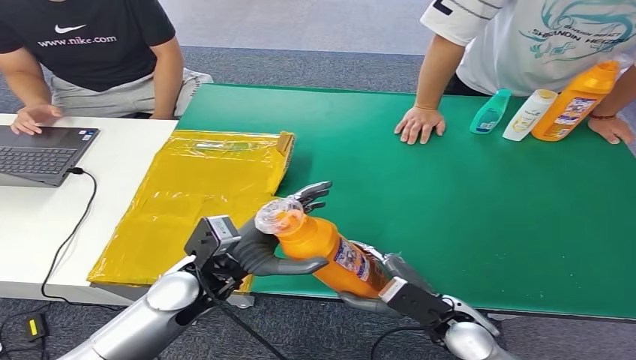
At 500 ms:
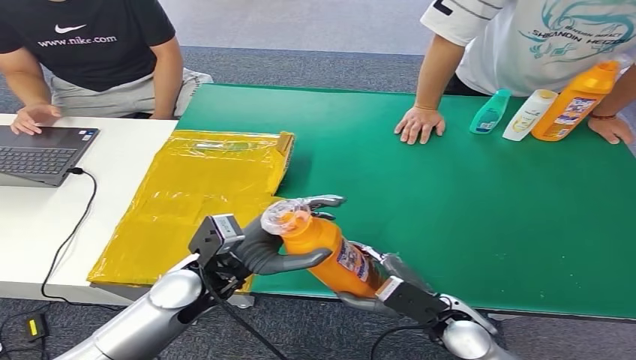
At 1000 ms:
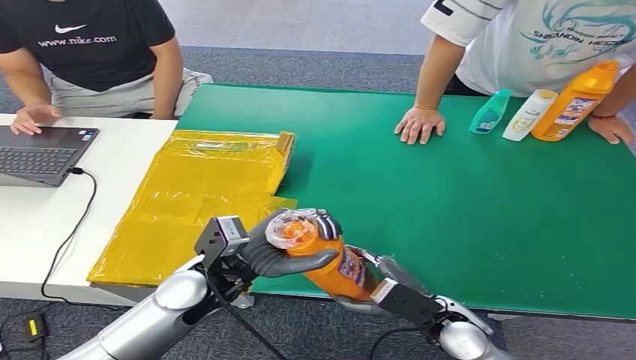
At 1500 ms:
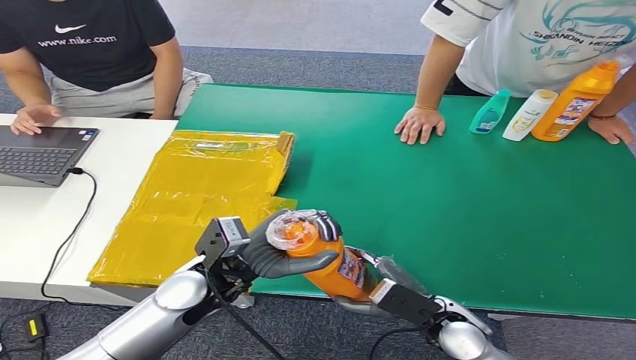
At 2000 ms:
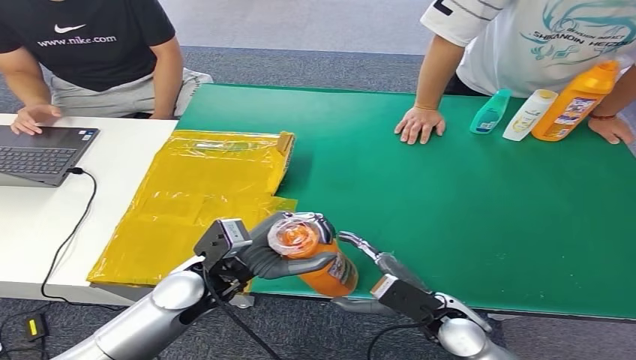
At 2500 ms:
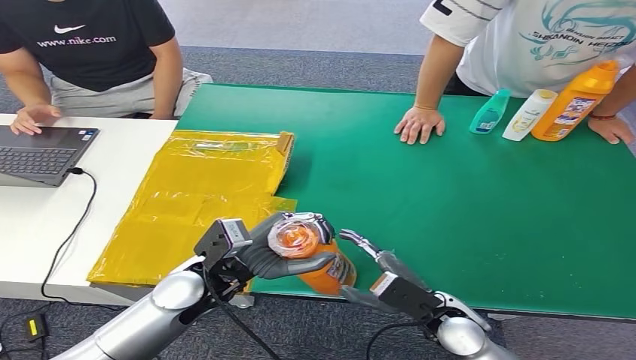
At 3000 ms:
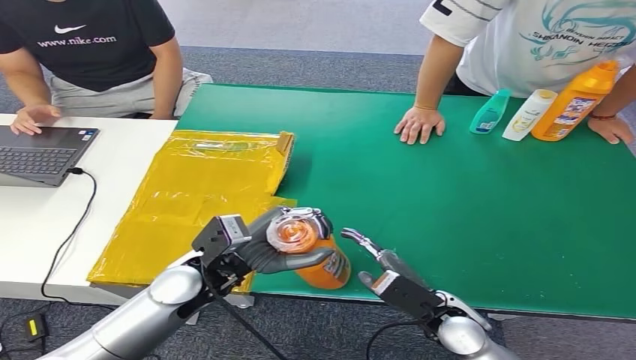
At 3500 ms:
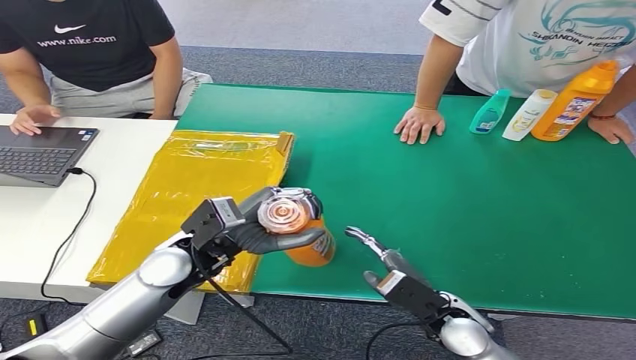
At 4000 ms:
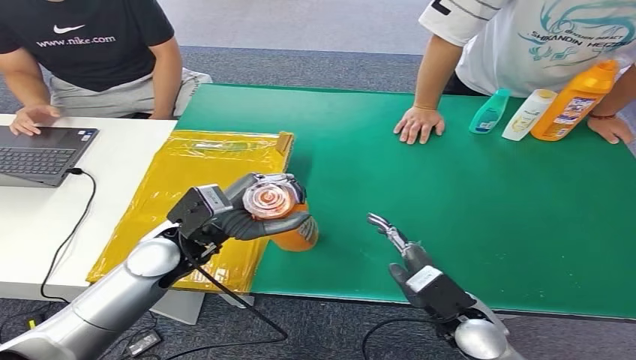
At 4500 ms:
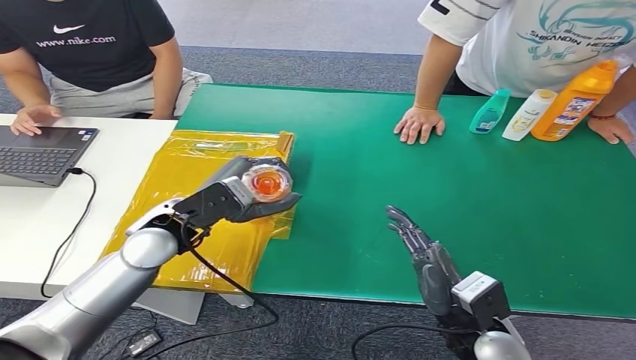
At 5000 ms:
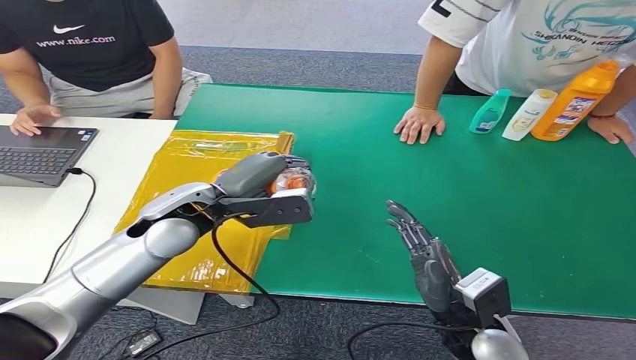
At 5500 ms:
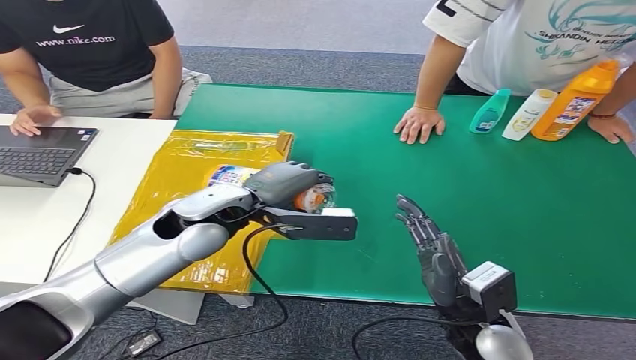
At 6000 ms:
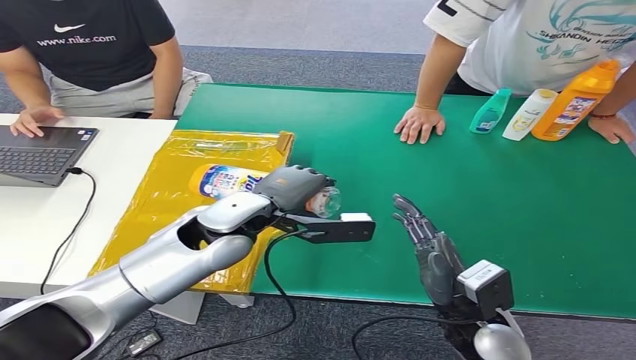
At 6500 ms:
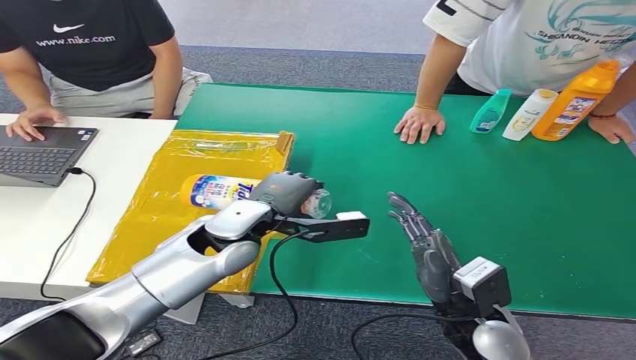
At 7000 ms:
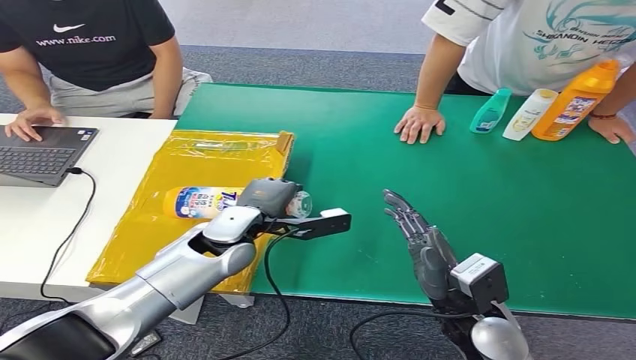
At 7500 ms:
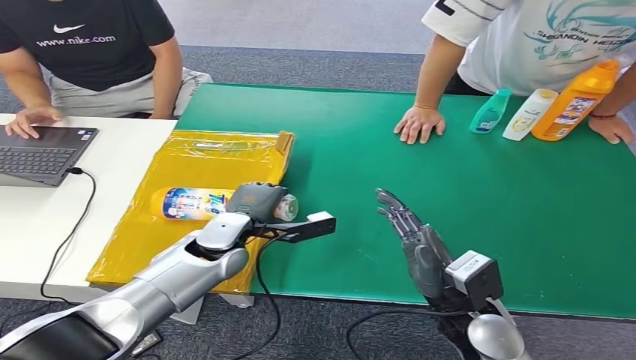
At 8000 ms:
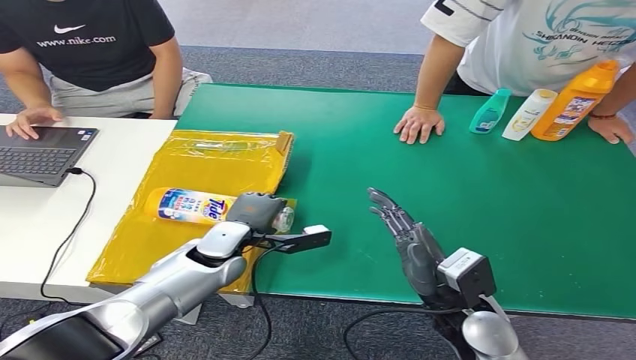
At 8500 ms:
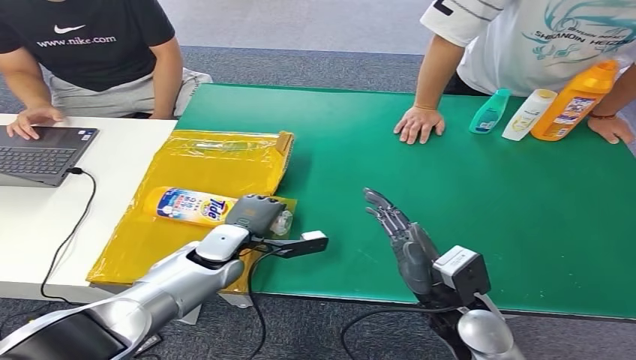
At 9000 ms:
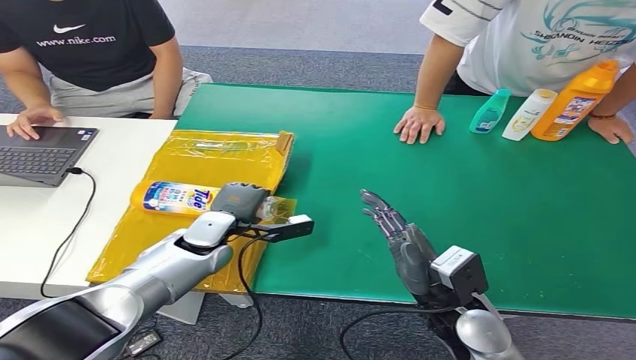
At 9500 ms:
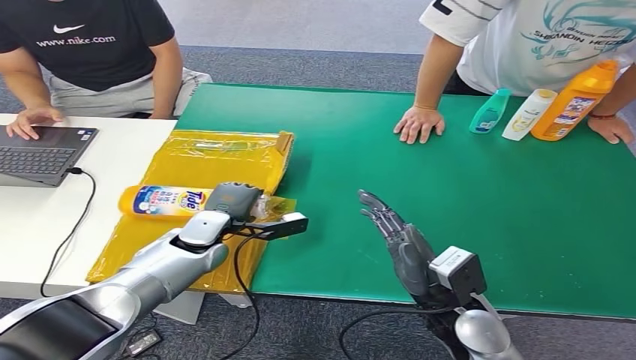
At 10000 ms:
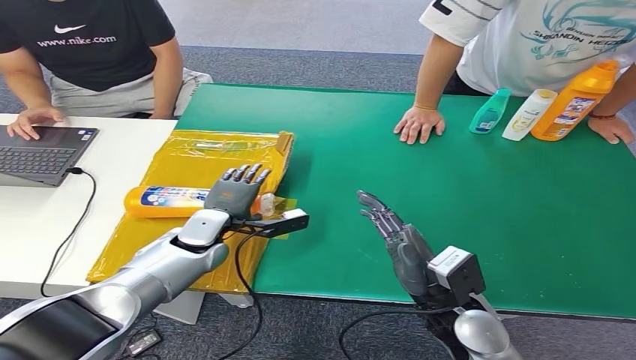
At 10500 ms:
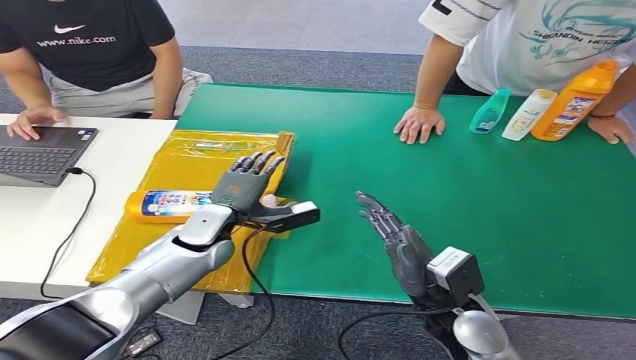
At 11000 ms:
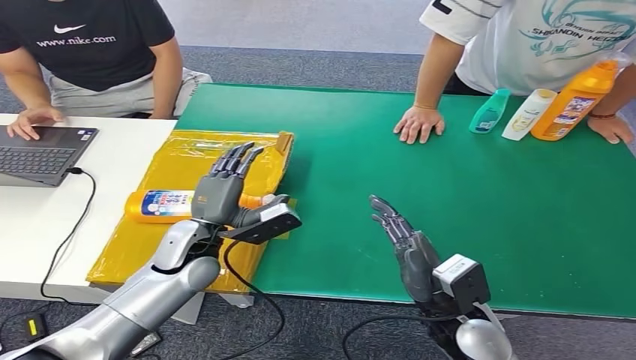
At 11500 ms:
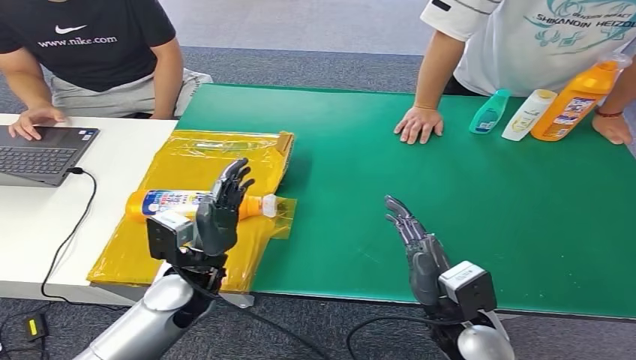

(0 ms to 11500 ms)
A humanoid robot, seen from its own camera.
Step, 0 ms - 11500 ms: Turn the bottle to the front side.
0 ms - 2000 ms: Neither hand changes place.
2000 ms - 4000 ms: The left hand moves about 5 cm.
4000 ms - 6000 ms: The left hand shifts about 5 cm to the right.
6000 ms - 7500 ms: The left hand is displaced downward by roughly 10 cm.
7500 ms - 9500 ms: The left hand ends up roughly 5 cm from where it was.
9500 ms - 11500 ms: The left hand is displaced backward by some 10 cm.

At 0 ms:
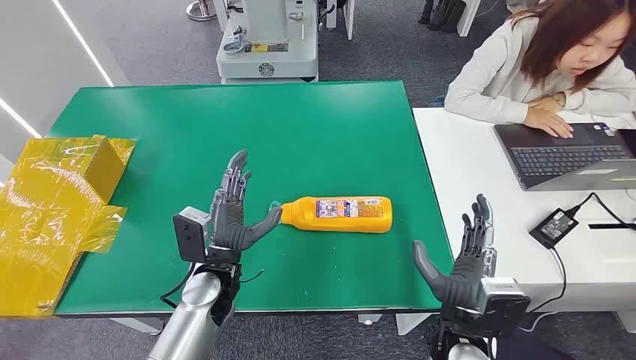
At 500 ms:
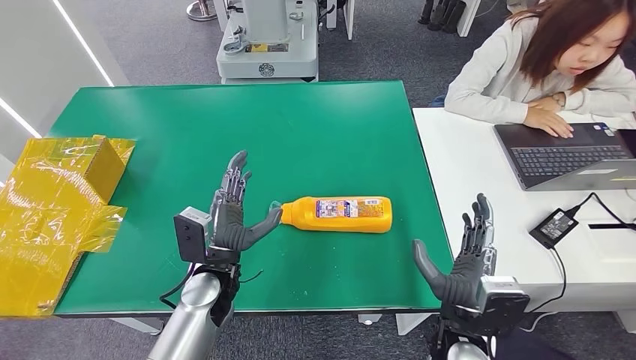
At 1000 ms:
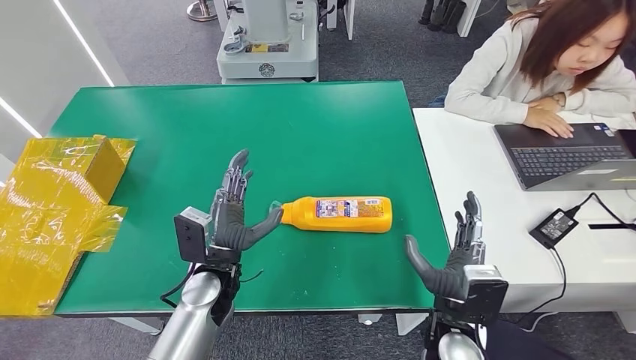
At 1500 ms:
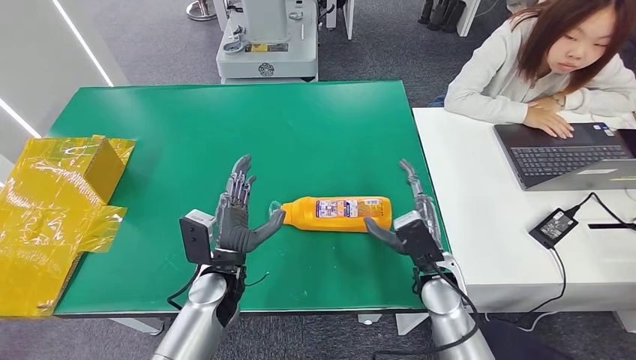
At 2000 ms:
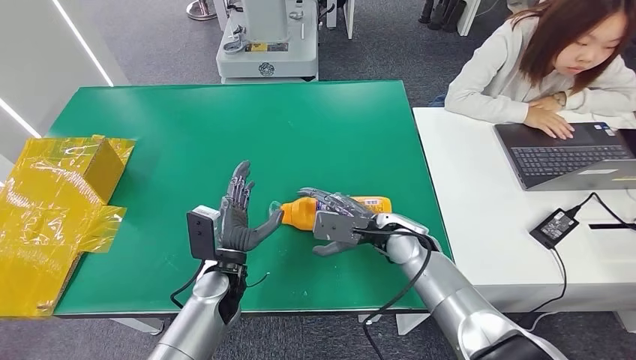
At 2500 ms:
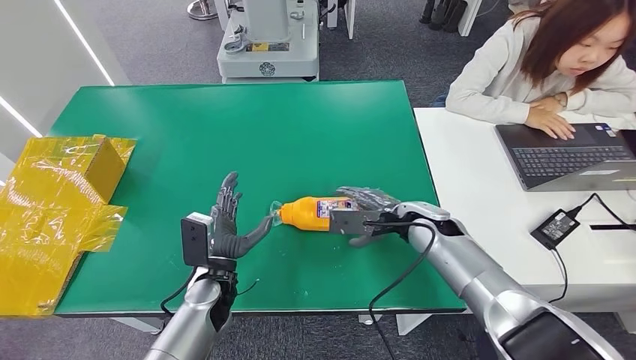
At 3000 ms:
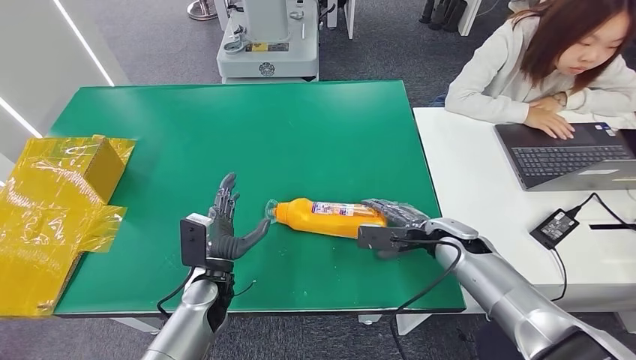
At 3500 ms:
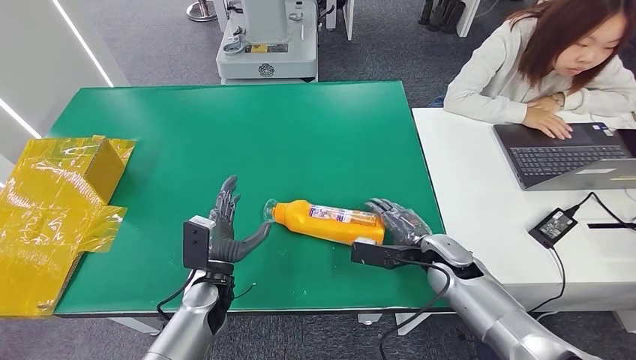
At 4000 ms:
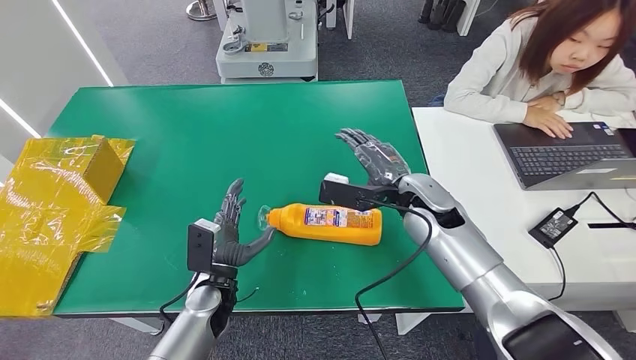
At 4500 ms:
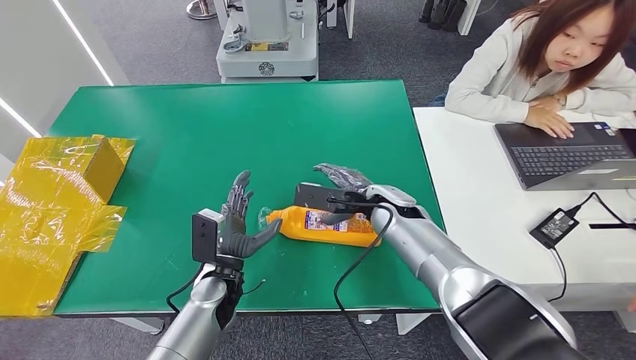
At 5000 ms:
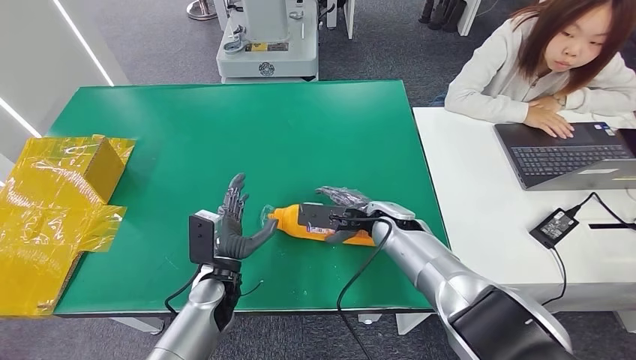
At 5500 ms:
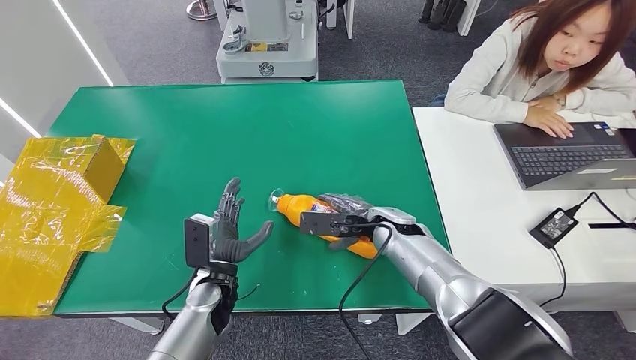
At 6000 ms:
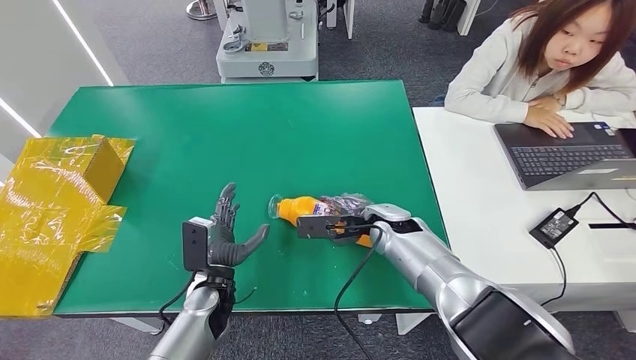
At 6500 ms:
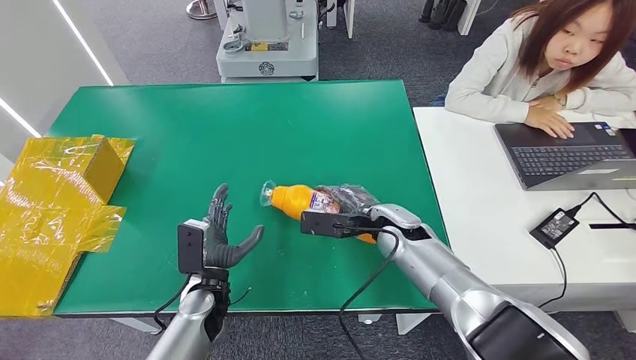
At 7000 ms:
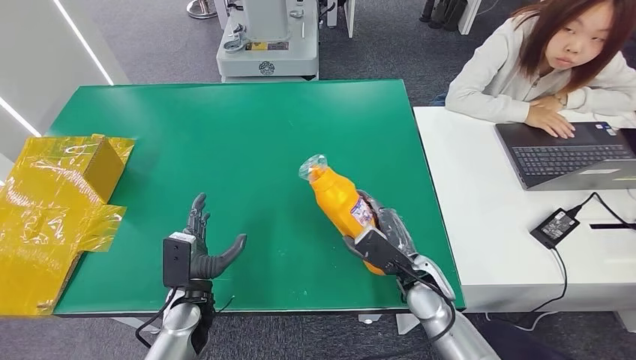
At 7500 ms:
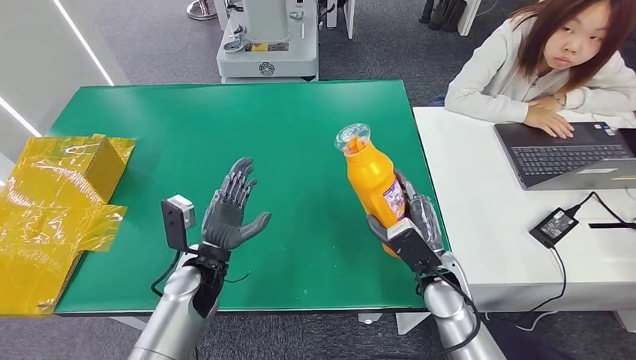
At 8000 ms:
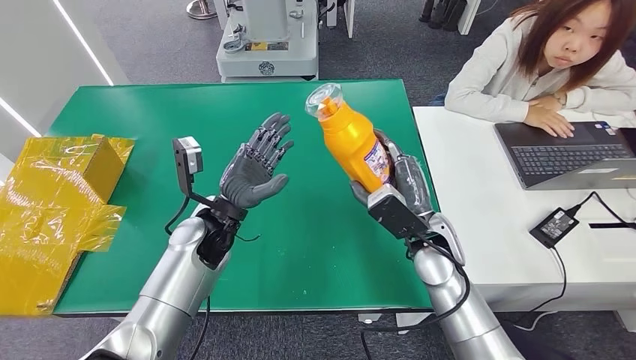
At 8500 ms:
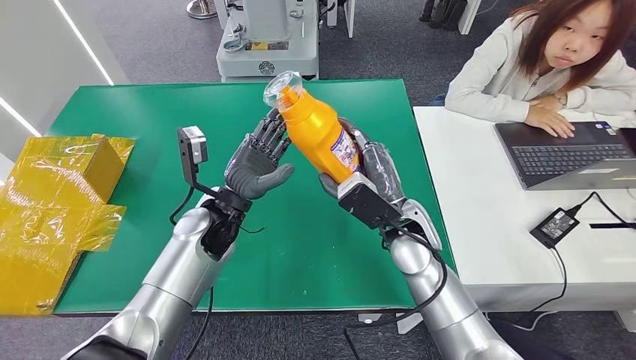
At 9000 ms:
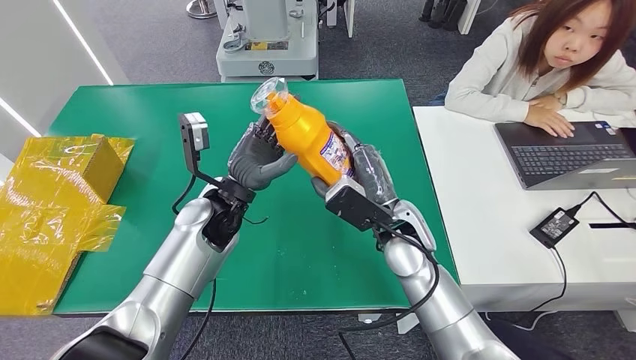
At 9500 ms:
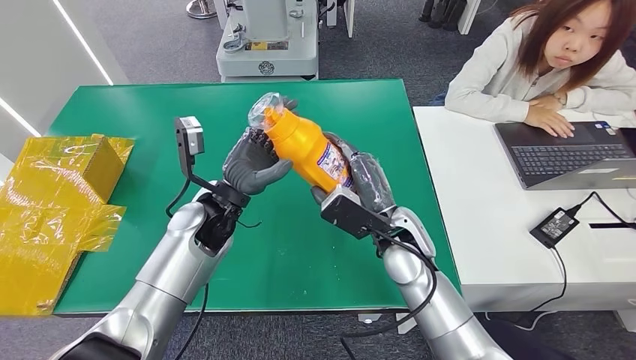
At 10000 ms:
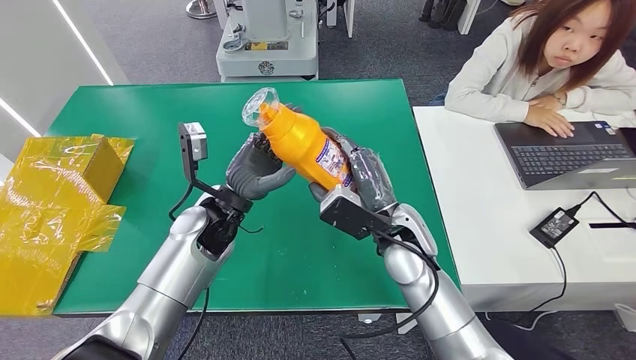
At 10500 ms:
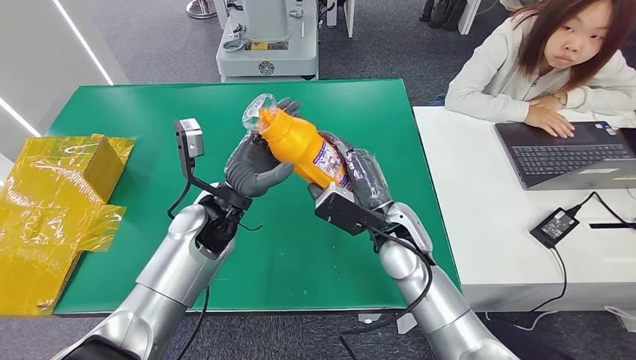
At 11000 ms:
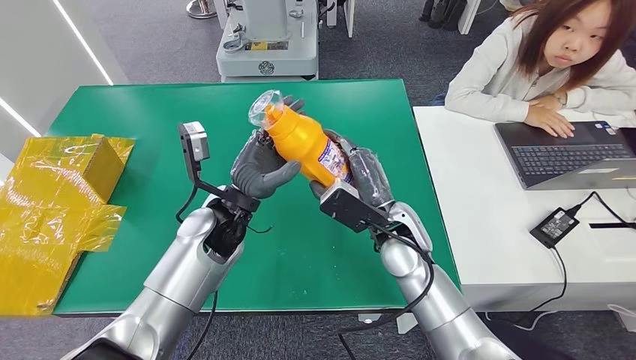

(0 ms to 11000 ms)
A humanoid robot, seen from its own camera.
Step, 0 ms - 6500 ms: Pick up the bottle from the table.
2000 ms - 3500 ms: The right hand is displaced to the right by roughly 10 cm.
3500 ms - 5500 ms: The right hand is displaced to the left and forward by roughly 10 cm, and reaches roughly 10 cm upward, then returns.
5500 ms - 7500 ms: The right hand shifts roughly 10 cm backward and to the right.
7500 ms - 9000 ms: The left hand moves upward and forward, approximately 10 cm. The right hand moves upward, to the left and forward, roughly 15 cm.
9000 ms - 11000 ms: The hands move only a little.
